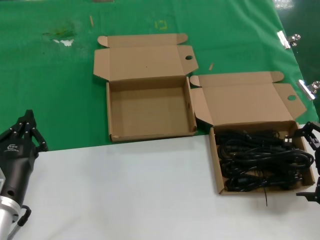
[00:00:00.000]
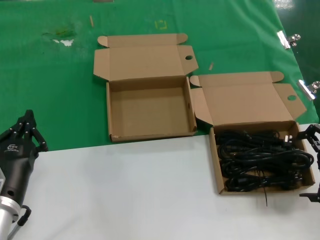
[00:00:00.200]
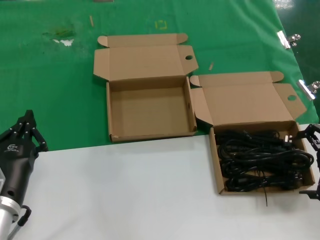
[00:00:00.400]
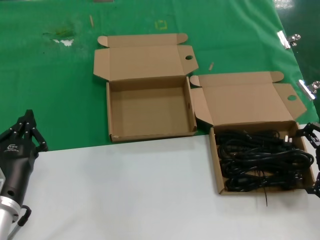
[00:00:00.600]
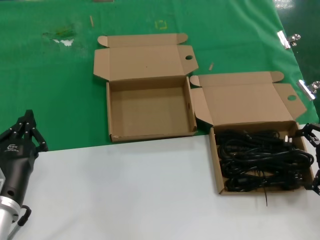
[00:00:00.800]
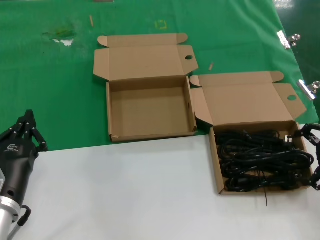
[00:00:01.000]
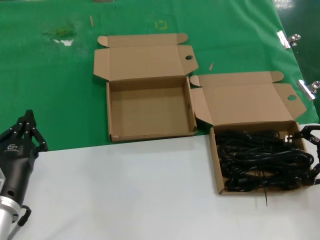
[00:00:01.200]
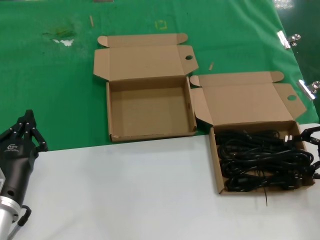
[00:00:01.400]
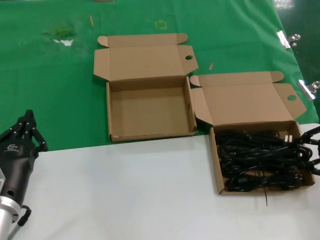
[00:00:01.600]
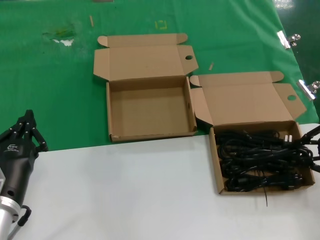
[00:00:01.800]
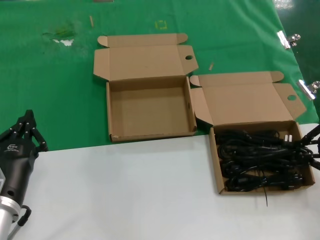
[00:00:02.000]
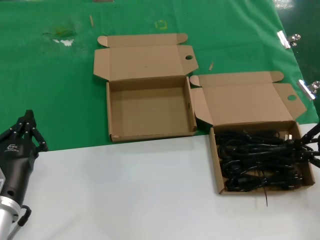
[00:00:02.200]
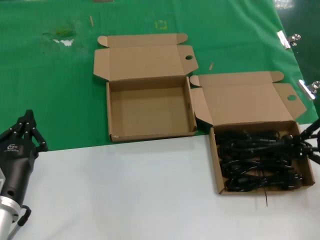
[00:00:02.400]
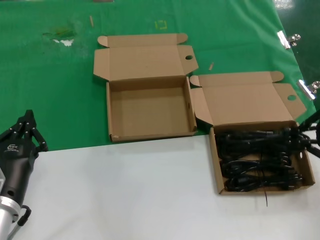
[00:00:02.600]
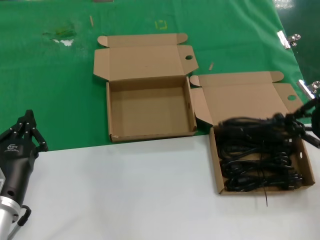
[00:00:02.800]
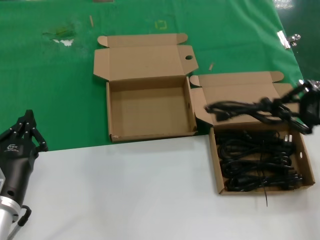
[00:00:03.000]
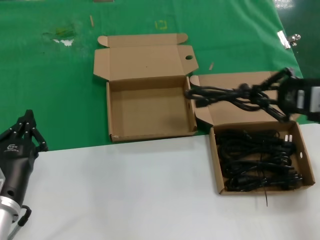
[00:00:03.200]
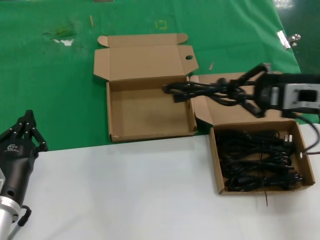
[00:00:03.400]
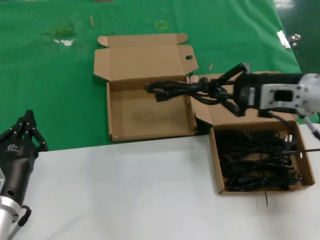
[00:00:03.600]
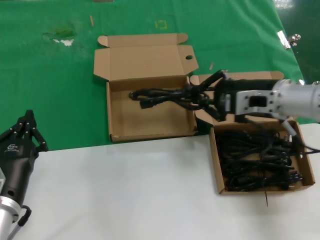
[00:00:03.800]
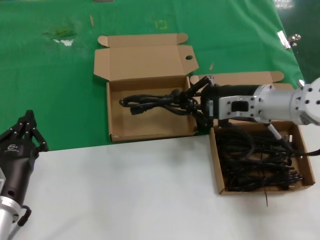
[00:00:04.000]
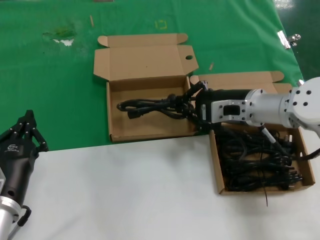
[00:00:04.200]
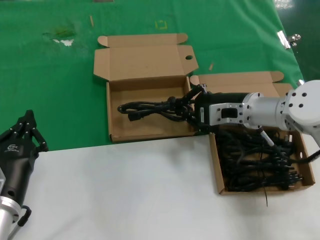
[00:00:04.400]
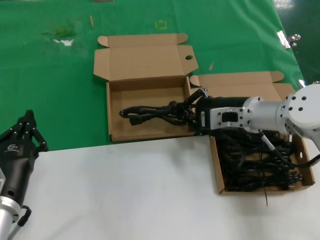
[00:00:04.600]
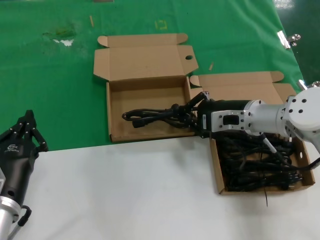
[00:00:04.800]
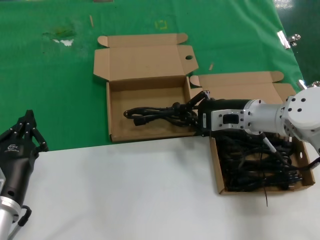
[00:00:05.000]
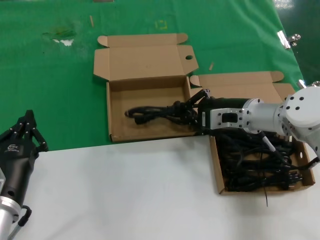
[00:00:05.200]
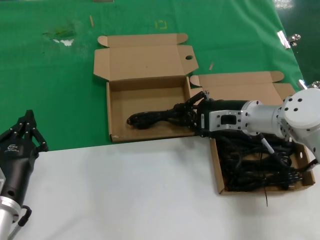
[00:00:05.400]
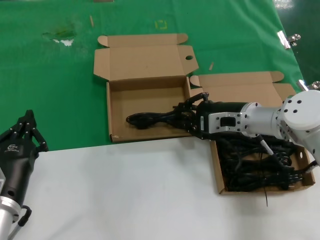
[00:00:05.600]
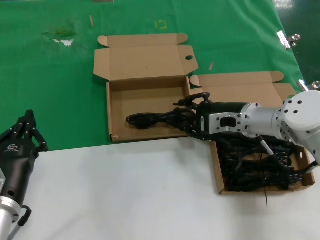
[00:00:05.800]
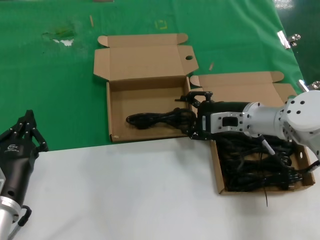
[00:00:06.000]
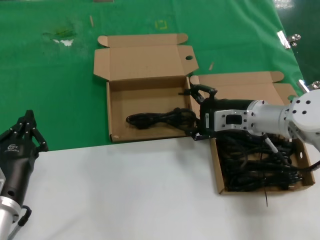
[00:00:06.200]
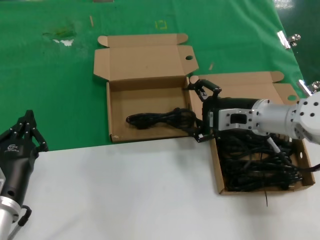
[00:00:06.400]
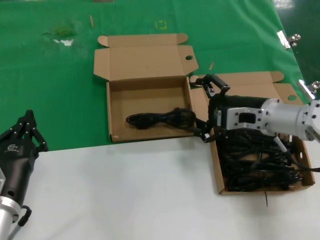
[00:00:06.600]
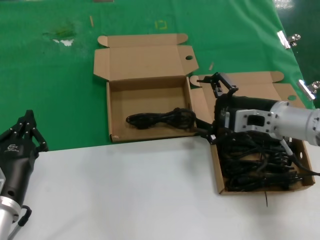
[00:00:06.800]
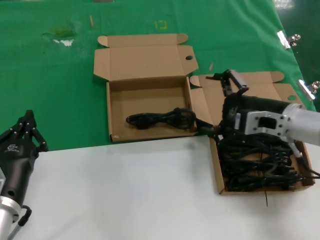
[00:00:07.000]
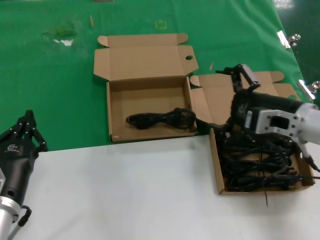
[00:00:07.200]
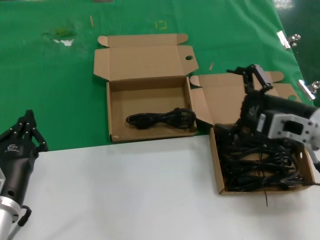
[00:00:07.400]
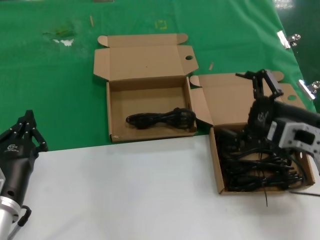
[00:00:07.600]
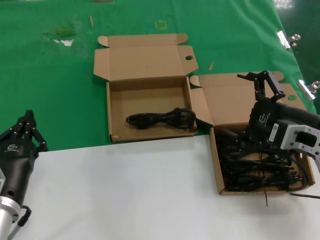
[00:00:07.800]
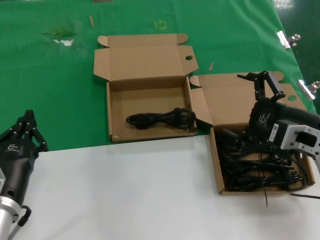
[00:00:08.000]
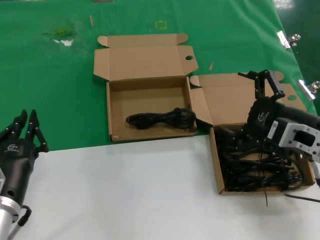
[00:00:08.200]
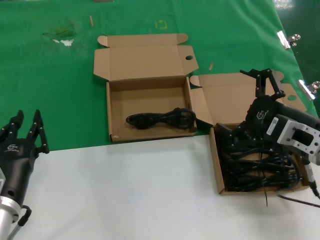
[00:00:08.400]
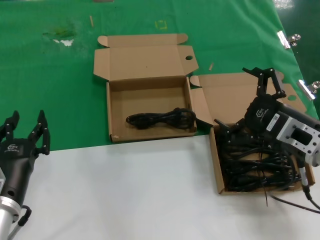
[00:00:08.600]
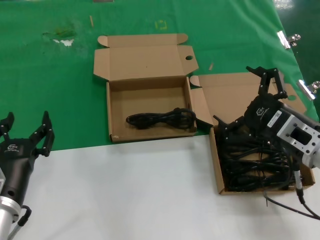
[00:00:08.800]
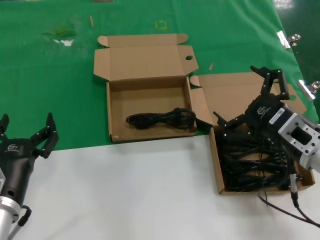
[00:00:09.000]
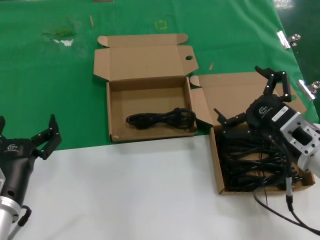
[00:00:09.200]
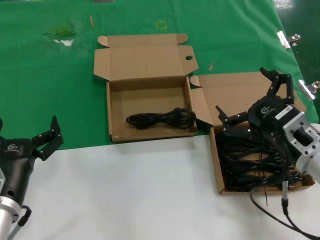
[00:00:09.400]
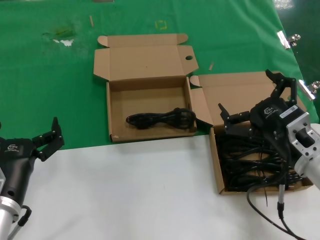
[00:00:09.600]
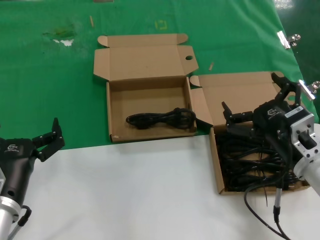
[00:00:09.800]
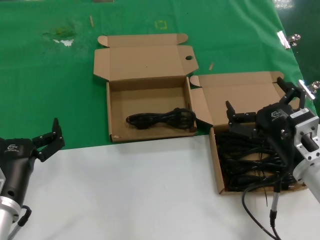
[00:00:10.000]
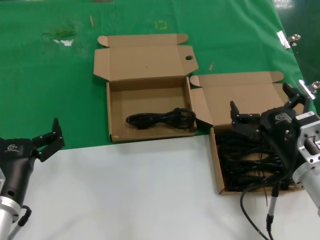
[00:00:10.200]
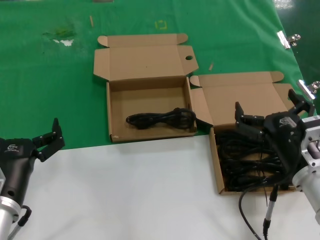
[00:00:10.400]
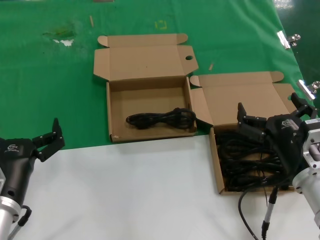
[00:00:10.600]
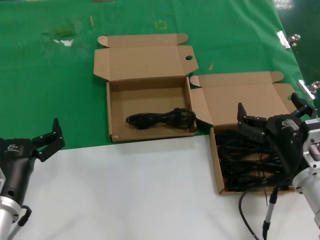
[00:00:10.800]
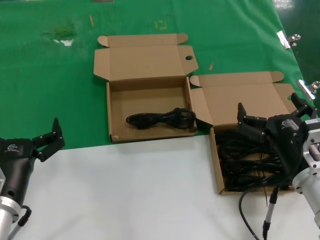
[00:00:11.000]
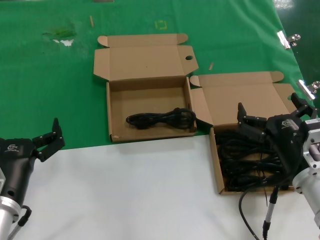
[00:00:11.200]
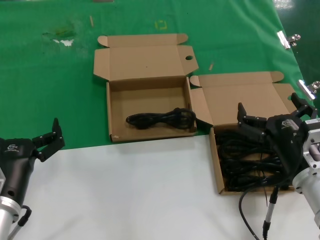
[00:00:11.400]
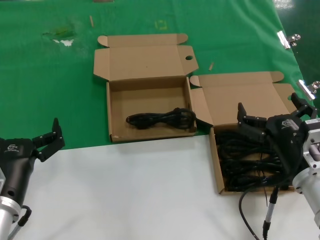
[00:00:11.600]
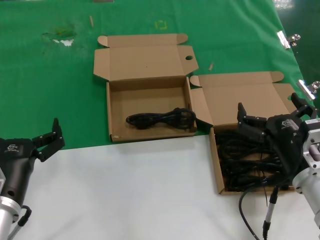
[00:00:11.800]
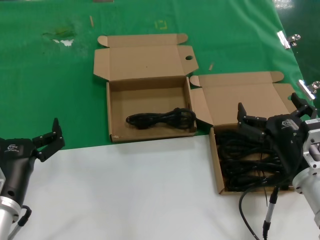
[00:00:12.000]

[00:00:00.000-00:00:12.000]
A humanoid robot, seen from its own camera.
Task of the whole recording: take the parts from the box containing them and put them into an empty box.
Step, 00:00:02.000 to 00:00:06.000: Place the data cable in the another box.
00:00:00.000 to 00:00:01.600: The right hand changes place by approximately 5 cm.
00:00:01.600 to 00:00:03.000: The right hand shifts some 5 cm upward.
00:00:03.000 to 00:00:04.400: The right hand travels to the left, forward and downward by roughly 20 cm.
00:00:04.400 to 00:00:06.000: There are only small adjustments of the hands.
00:00:06.000 to 00:00:07.600: The right hand is displaced backward and to the right by about 15 cm.
00:00:09.000 to 00:00:10.400: The right hand heads downward, covering about 5 cm.
00:00:10.400 to 00:00:12.000: Both hands stay put.

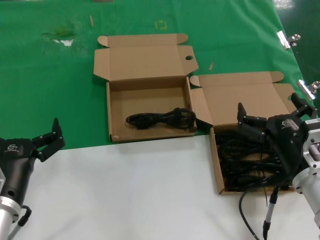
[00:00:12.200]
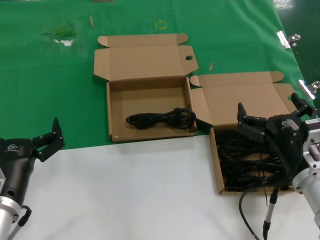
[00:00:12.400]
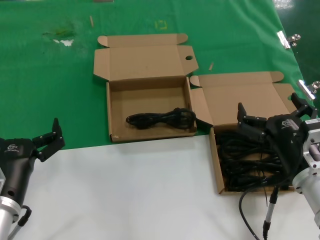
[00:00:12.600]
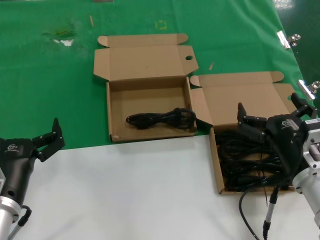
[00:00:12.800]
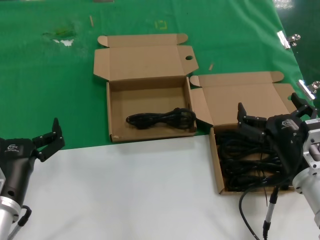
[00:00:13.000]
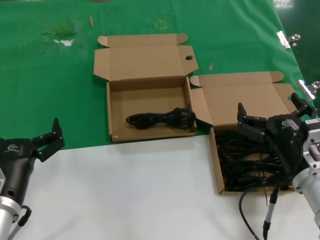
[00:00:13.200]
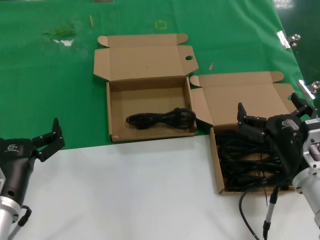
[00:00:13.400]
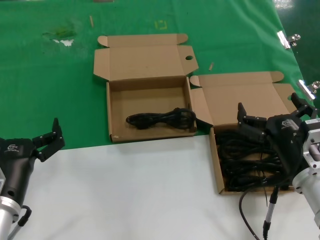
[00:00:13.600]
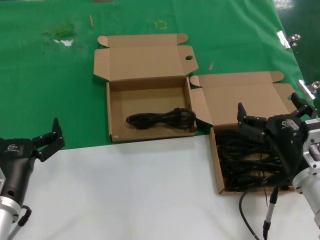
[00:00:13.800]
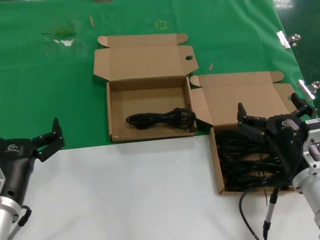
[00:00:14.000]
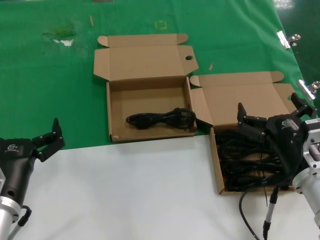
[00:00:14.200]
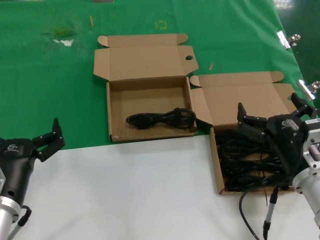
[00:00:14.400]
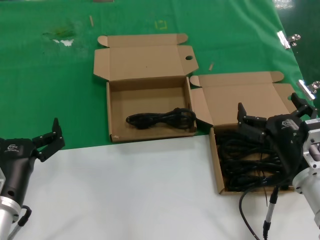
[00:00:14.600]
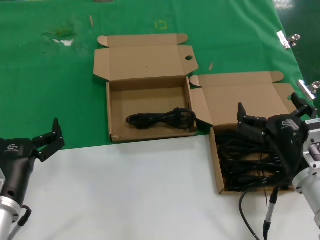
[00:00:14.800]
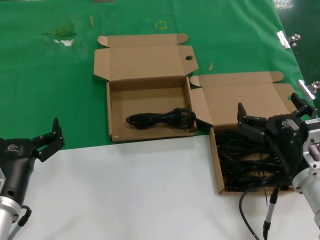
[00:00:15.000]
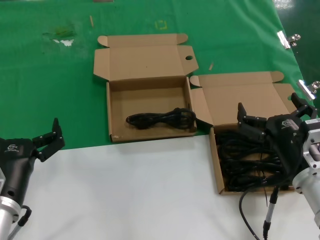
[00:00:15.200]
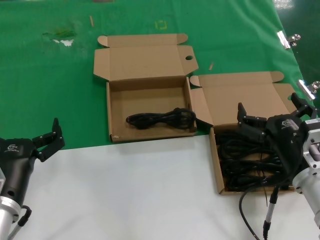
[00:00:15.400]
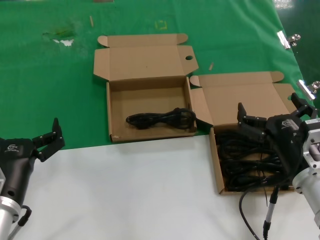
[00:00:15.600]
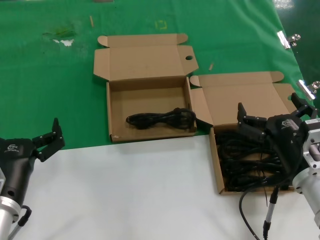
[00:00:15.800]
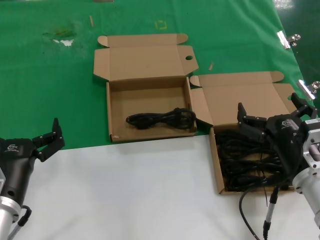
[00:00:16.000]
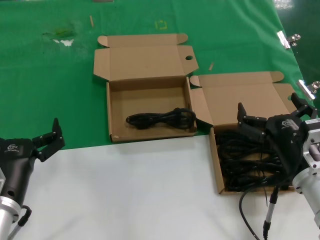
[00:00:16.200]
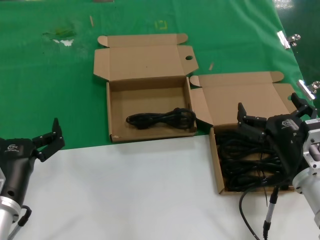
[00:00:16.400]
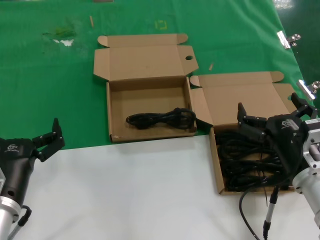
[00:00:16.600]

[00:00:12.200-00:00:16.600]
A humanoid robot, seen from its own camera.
Task of the whole recording: take the parts from the box containing them and put them into an empty box.
00:00:12.200 to 00:00:16.600: The two hands keep their place.
